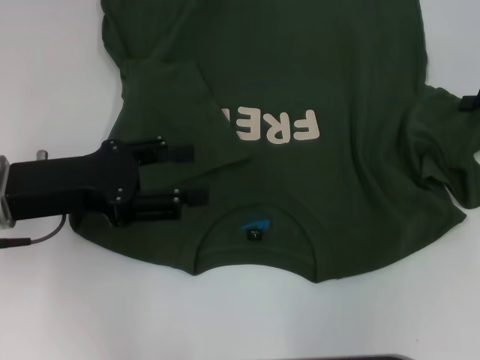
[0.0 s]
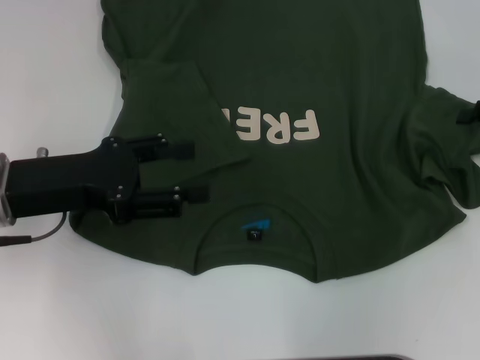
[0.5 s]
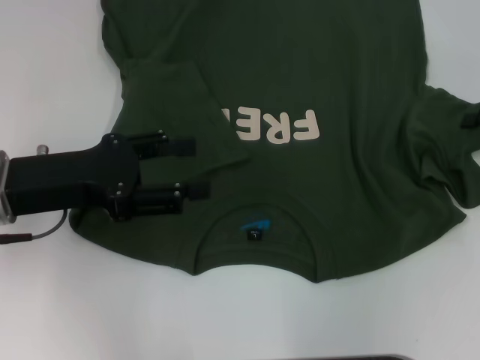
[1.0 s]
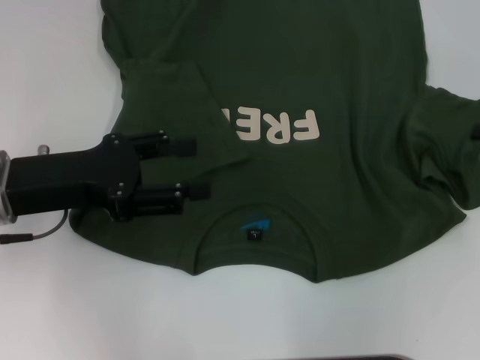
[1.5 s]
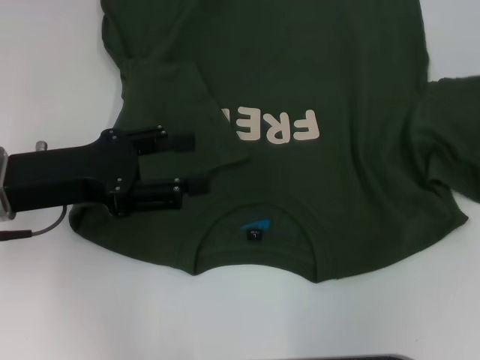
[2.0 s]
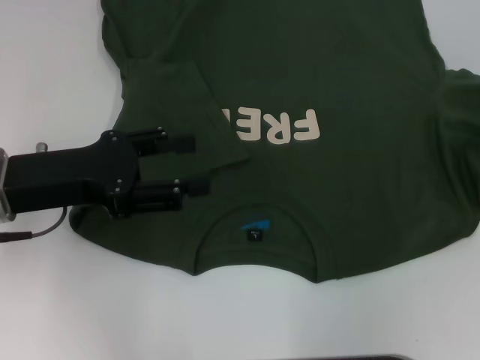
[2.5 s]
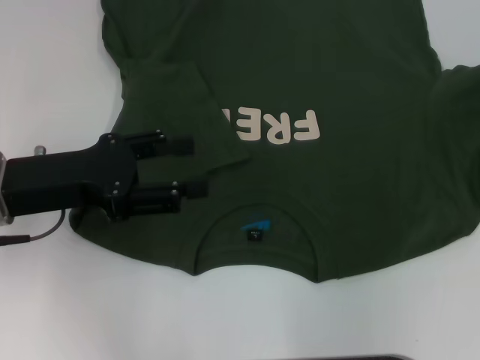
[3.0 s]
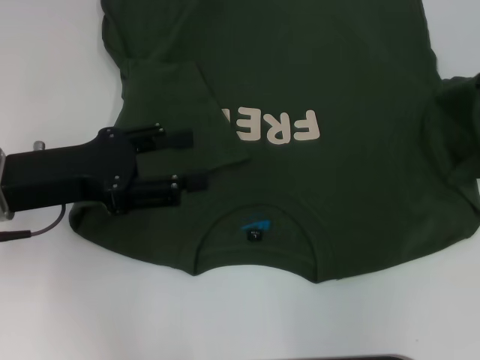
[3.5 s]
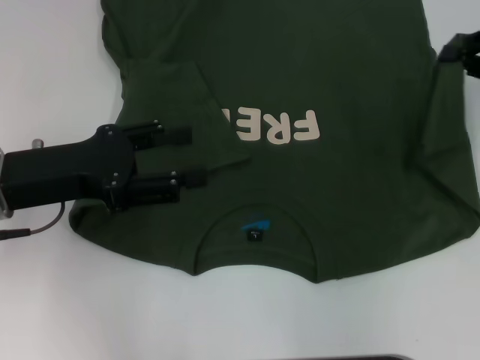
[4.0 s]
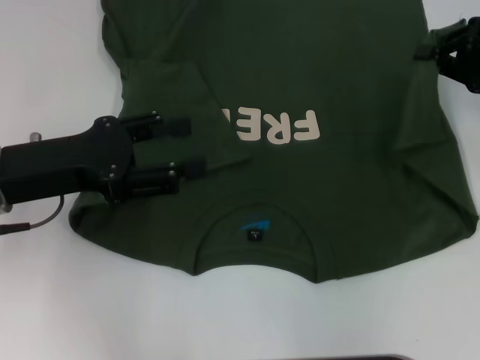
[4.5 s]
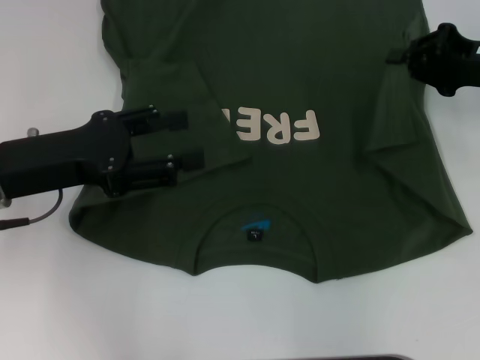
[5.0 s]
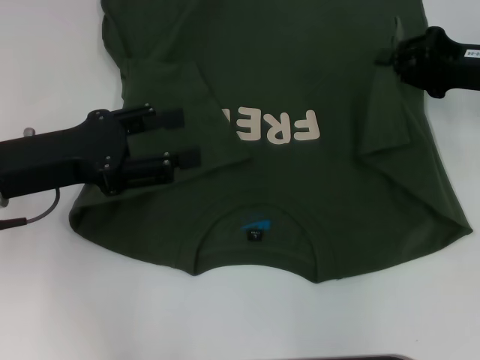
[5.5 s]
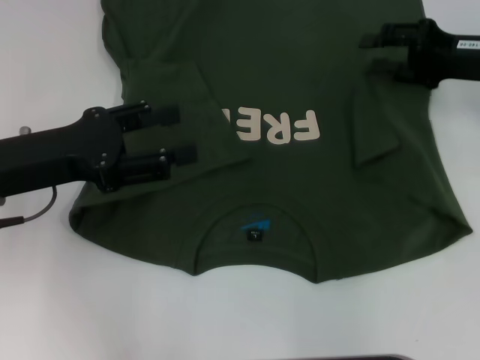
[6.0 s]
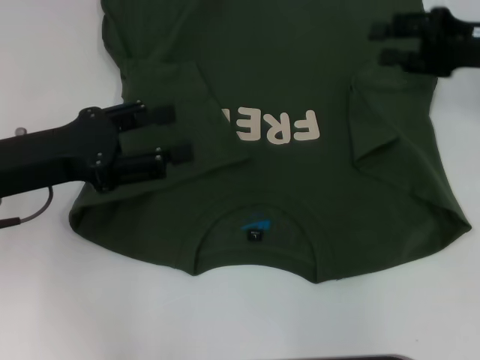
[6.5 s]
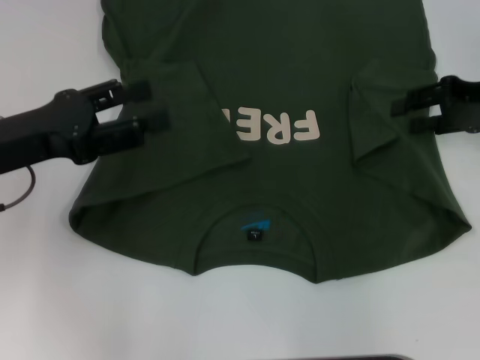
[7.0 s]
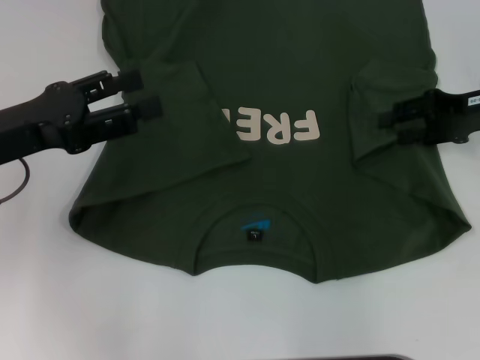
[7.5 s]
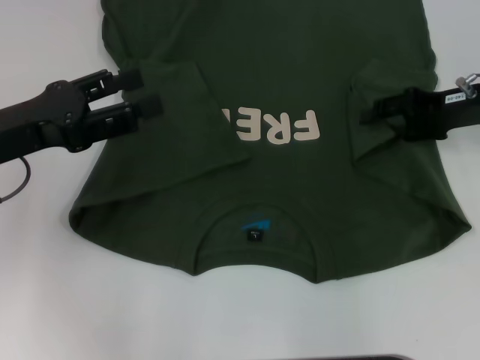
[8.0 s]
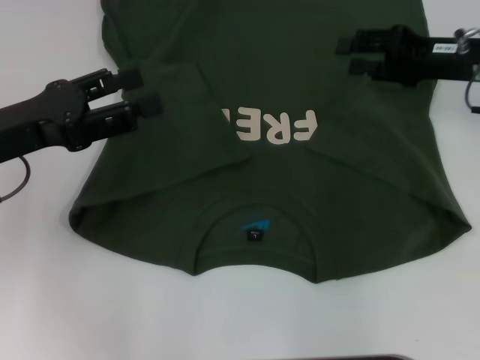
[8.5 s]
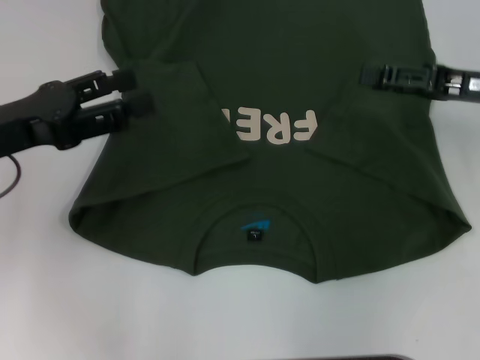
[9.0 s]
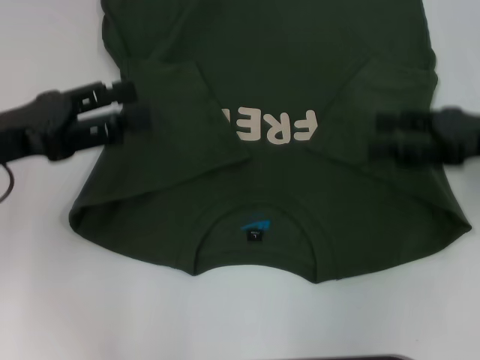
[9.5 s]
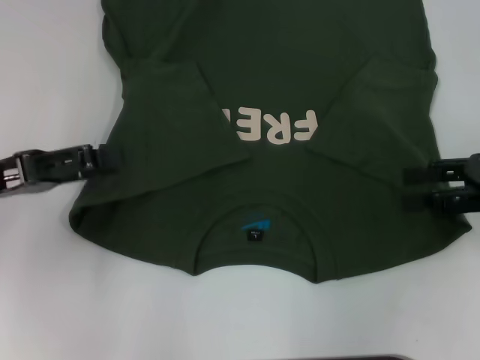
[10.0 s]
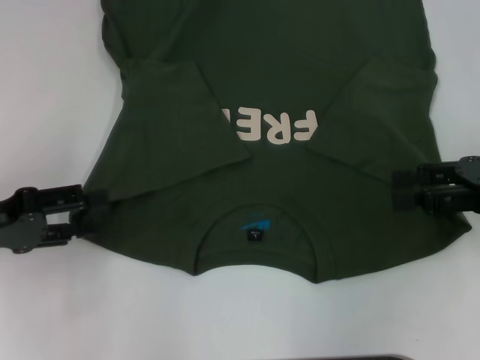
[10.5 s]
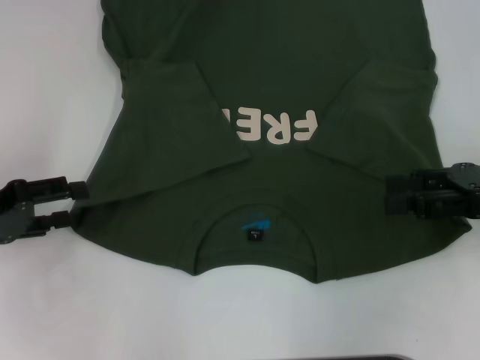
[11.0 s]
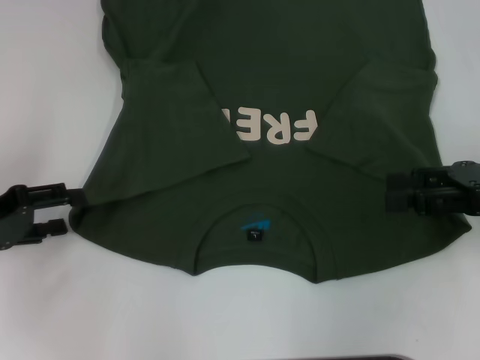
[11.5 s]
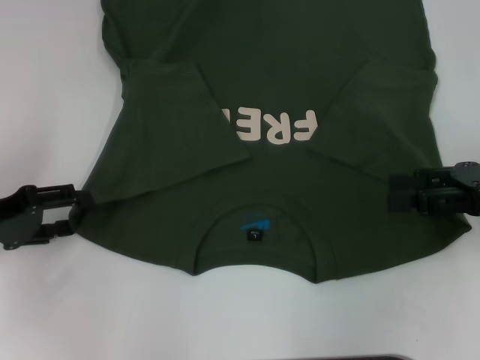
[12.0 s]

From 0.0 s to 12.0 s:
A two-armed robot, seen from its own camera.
Step, from 0.0 s to 9.0 s: Fold the bottom right sleeve with your right hand.
From 0.0 s to 2.0 s: The right gripper closes its fingers.
From 2.0 s to 4.0 s: The right gripper travels to the left by roughly 5 cm.
From 4.0 s to 6.0 s: The right gripper travels to the left by roughly 5 cm, and opens.
From 8.0 s to 10.0 s: The right gripper goes about 10 cm backward.
From 10.0 s to 12.0 s: The left gripper travels downward by roughly 5 cm.

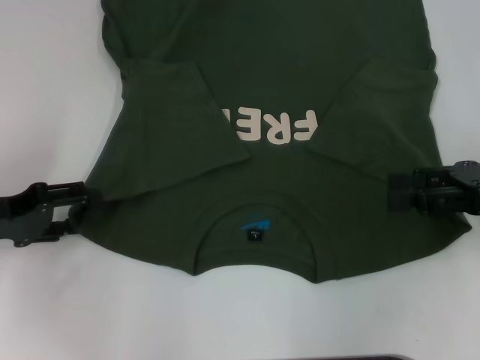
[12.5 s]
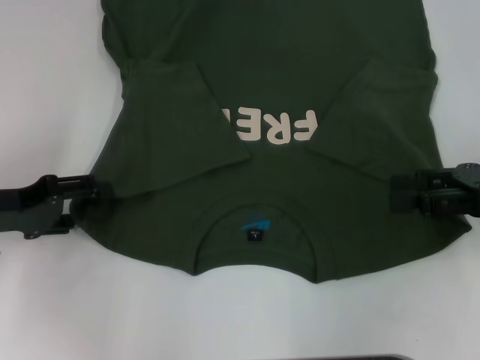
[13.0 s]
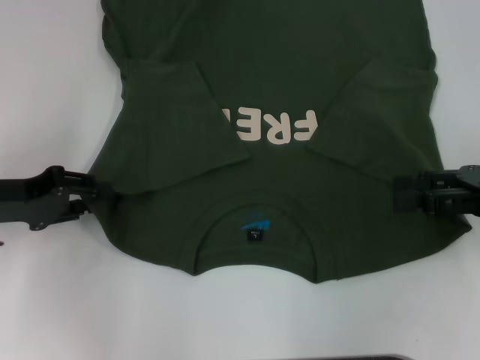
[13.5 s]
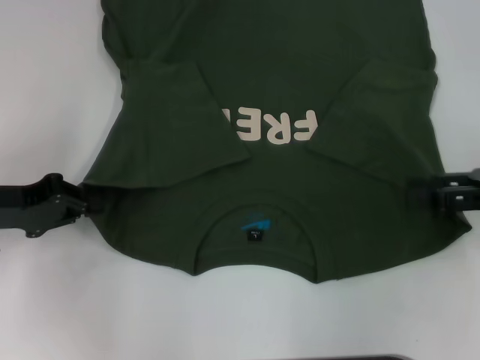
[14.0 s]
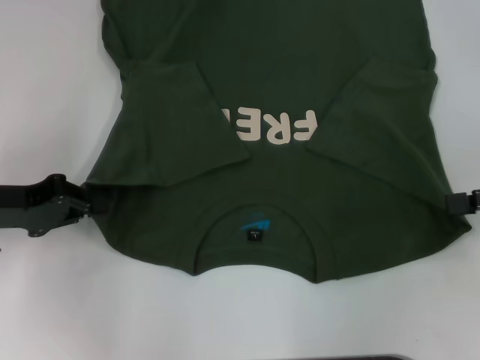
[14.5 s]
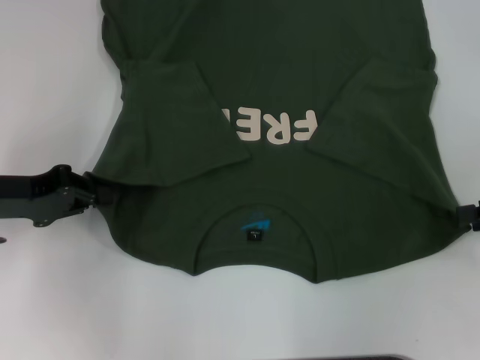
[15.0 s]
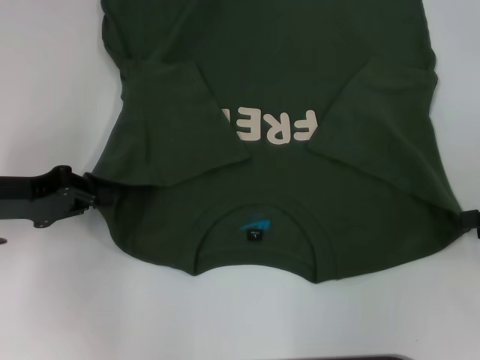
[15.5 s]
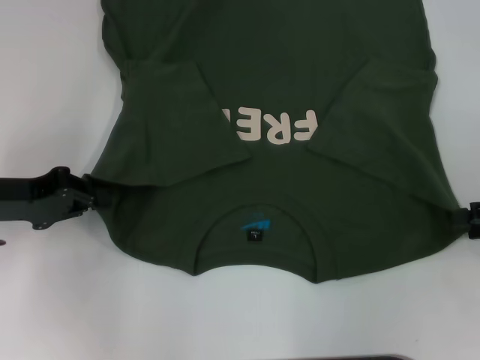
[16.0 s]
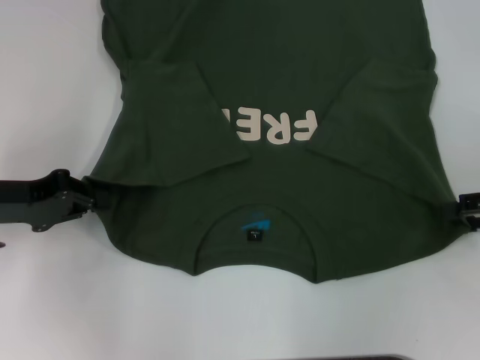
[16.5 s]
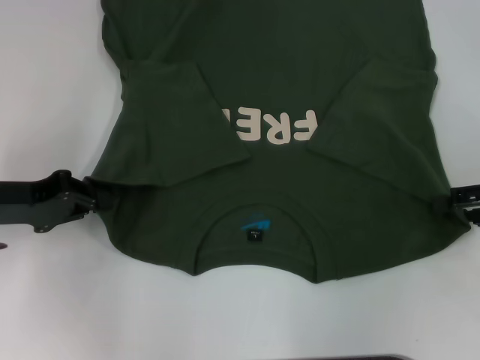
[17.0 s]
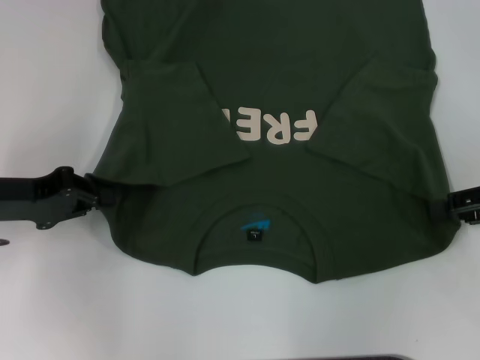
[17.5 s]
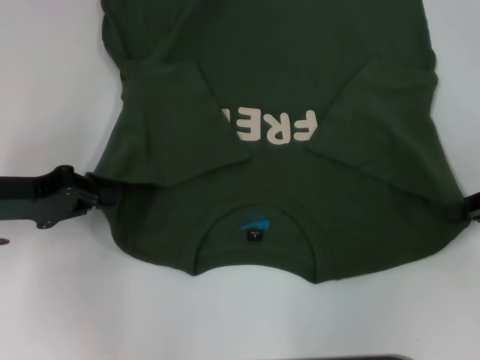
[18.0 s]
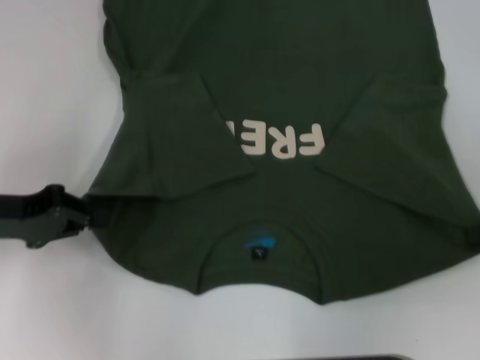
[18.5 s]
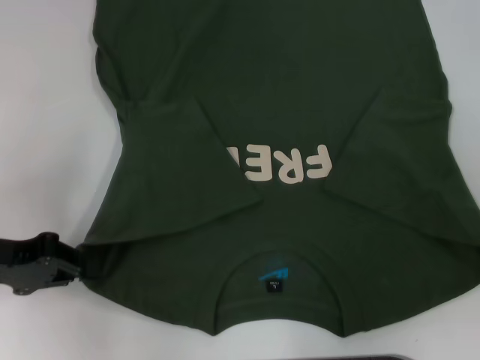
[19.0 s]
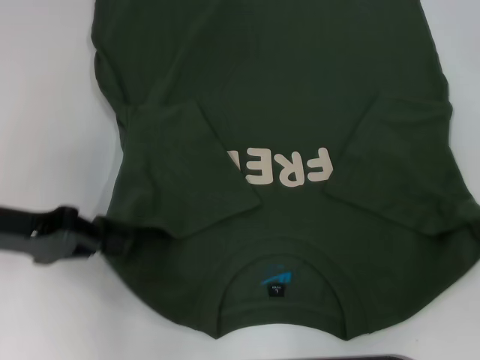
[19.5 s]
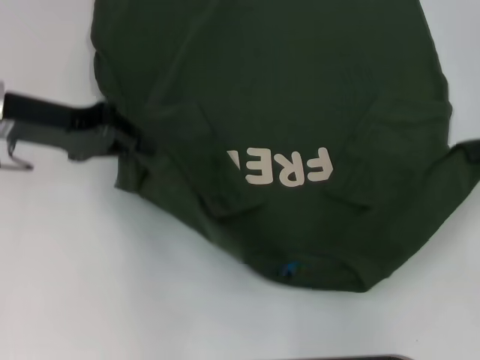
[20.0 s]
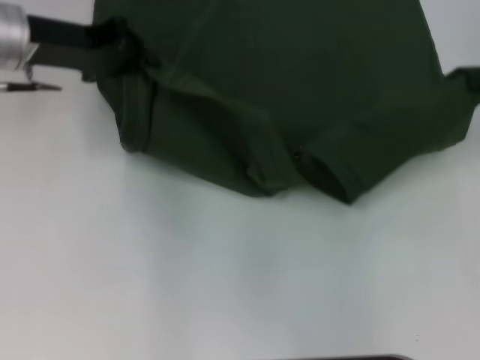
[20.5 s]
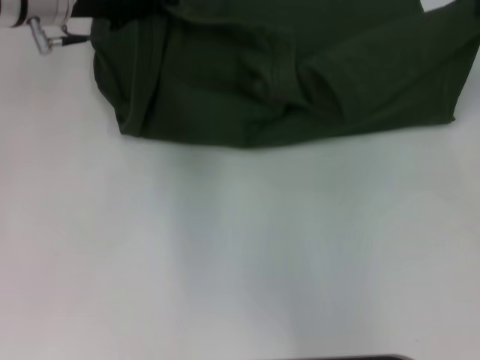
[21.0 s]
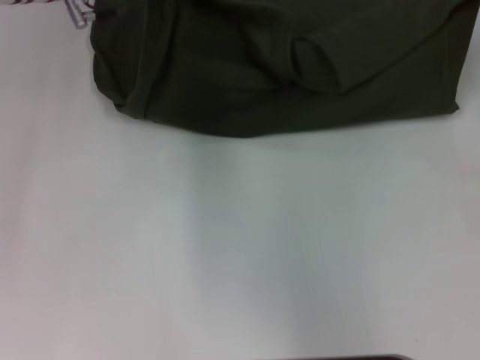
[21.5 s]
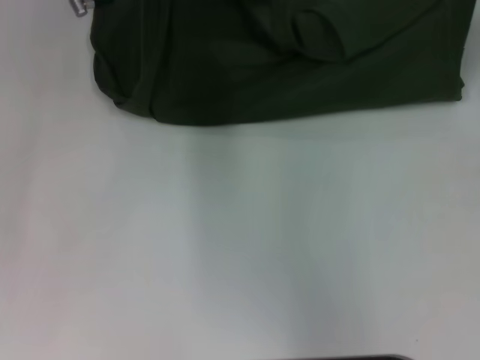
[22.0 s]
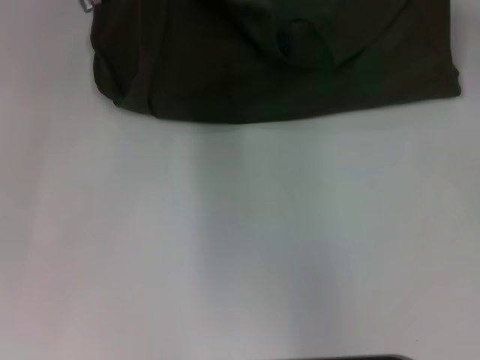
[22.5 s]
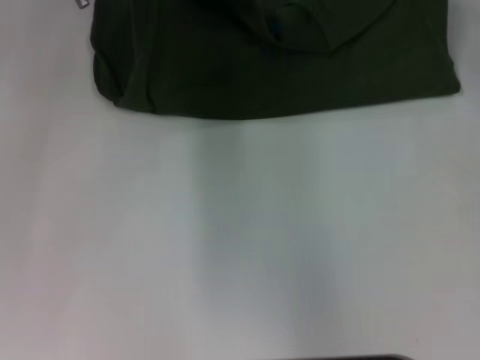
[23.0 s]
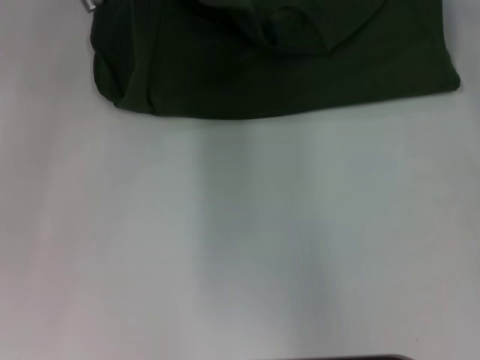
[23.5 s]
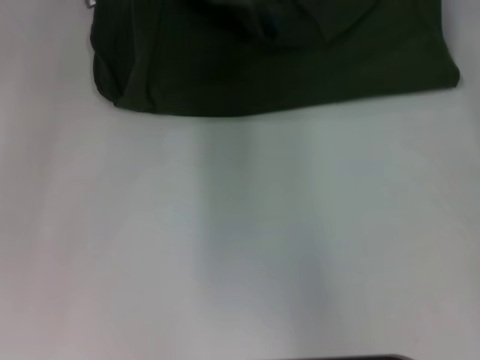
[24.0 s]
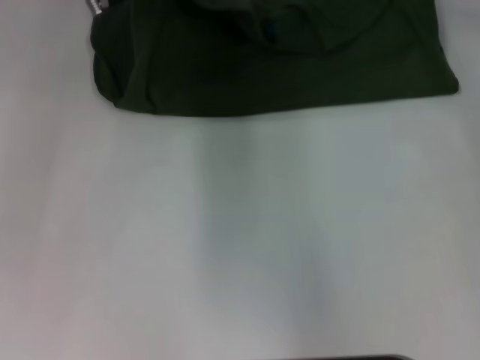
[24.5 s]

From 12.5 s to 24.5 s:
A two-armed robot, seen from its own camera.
Step, from 14.0 s to 17.5 s: Grab the bottom right corner with your right hand.
From 12.5 s to 14.5 s: The right gripper heads to the right, covering roughly 5 cm, while the left gripper closes up.
From 14.5 s to 16.5 s: The grippers move only a little.
From 16.5 s to 18.5 s: The right gripper closes up.
From 18.5 s to 20.5 s: The right gripper goes approximately 15 cm upward and forward. Meanwhile the left gripper travels forward, upward and to the right by approximately 15 cm.
From 20.5 s to 22.5 s: The left gripper heads forward and to the right, covering roughly 10 cm; the right gripper shifts some 10 cm forward.
From 22.5 s to 24.5 s: The grippers move only a little.

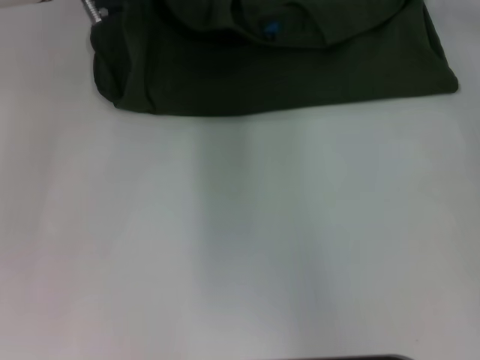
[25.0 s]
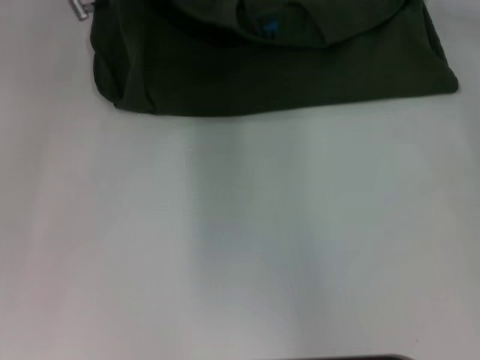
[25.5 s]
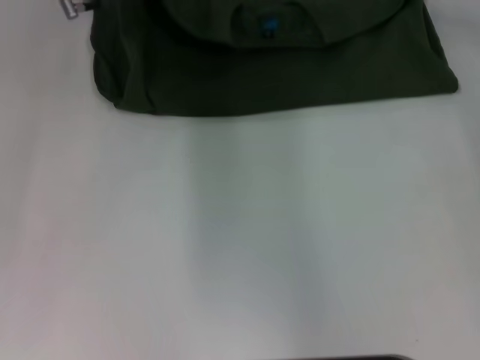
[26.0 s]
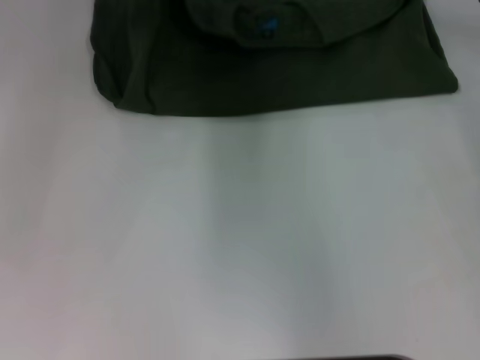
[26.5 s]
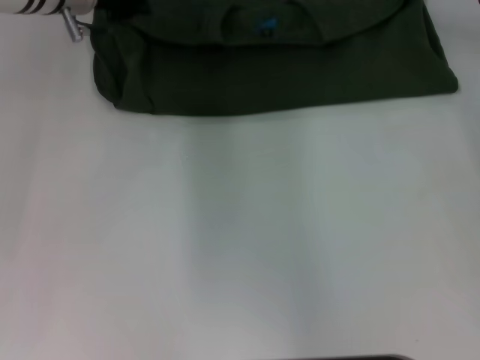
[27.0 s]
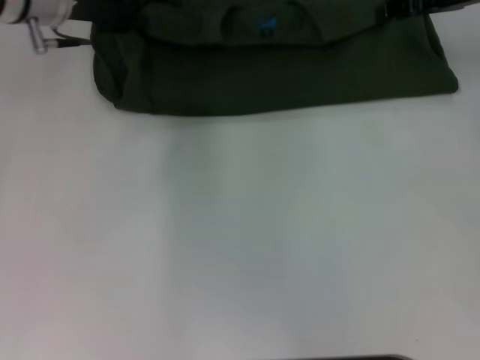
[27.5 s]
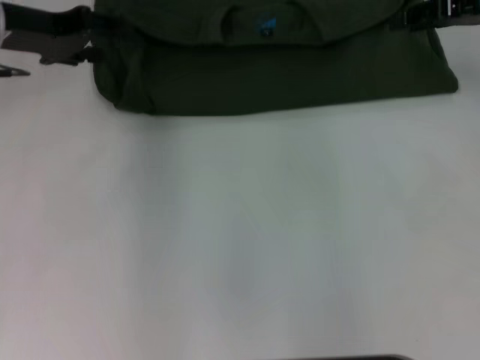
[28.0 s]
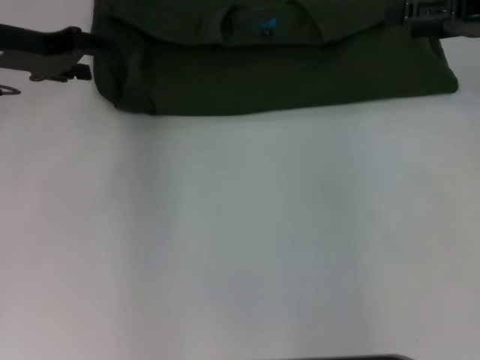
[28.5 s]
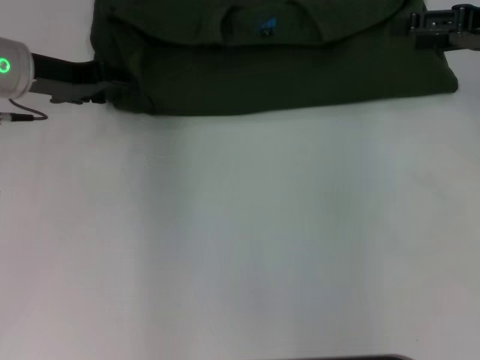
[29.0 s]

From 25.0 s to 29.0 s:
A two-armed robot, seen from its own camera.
Step, from 25.0 s to 28.0 s: Fold the clothes with your left hand.
Step, from 25.0 s to 28.0 s: Fold the clothes with your right hand.
From 27.0 s to 29.0 s: The right gripper heads backward and to the right, covering about 10 cm, and opens up; the left gripper moves to the left and backward, about 10 cm.
